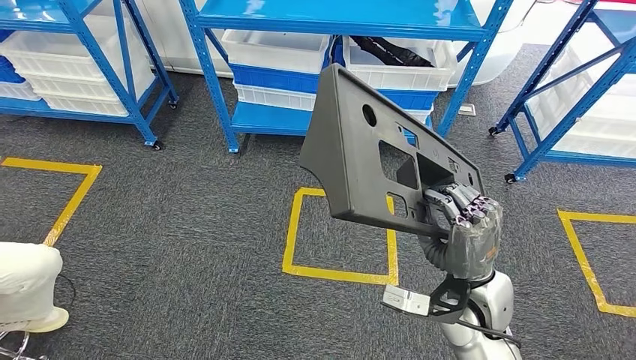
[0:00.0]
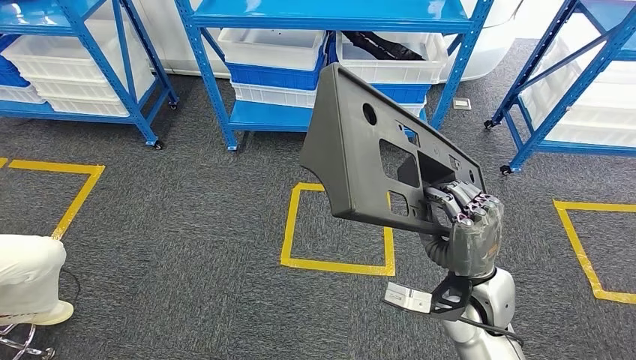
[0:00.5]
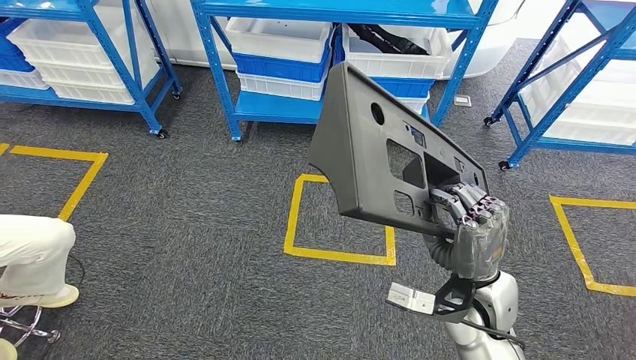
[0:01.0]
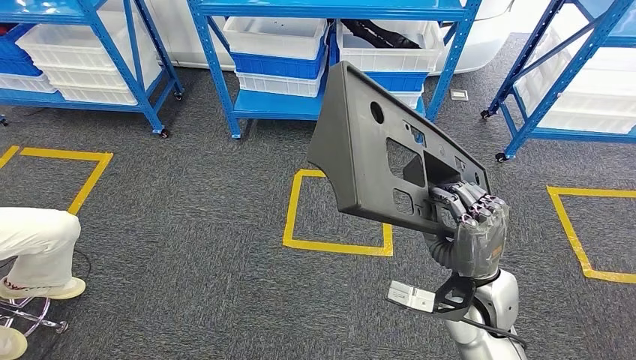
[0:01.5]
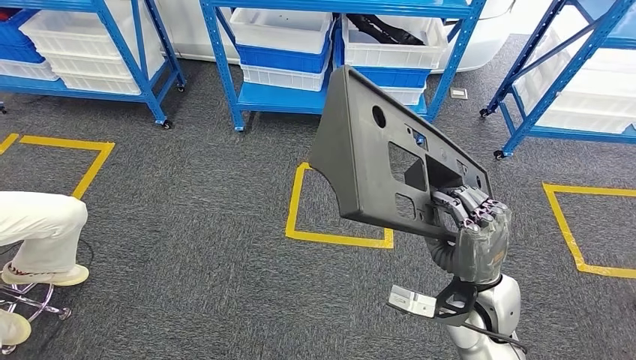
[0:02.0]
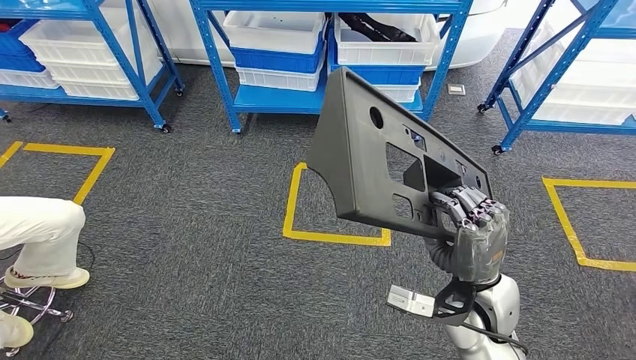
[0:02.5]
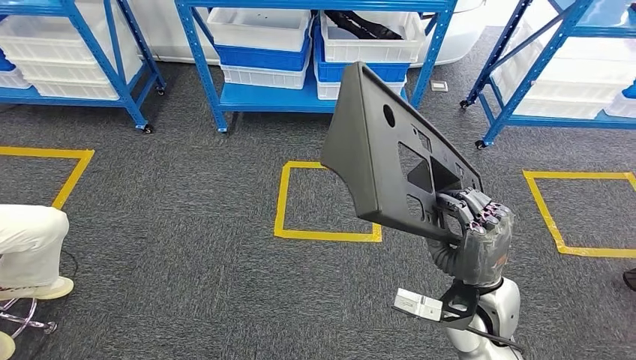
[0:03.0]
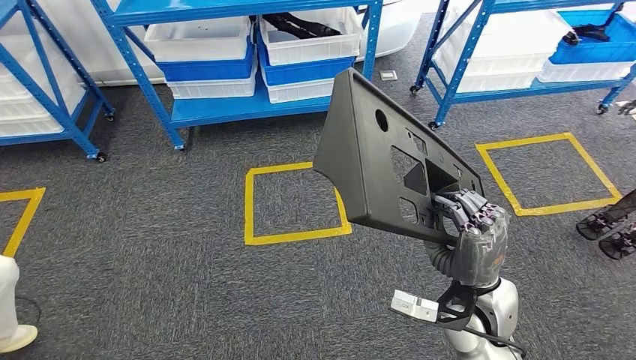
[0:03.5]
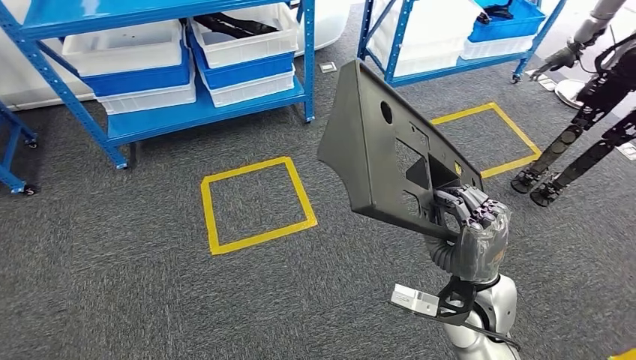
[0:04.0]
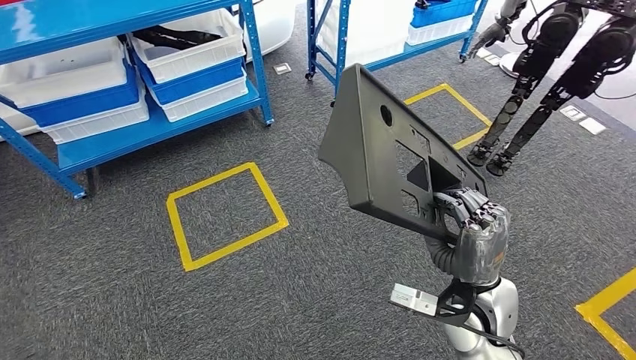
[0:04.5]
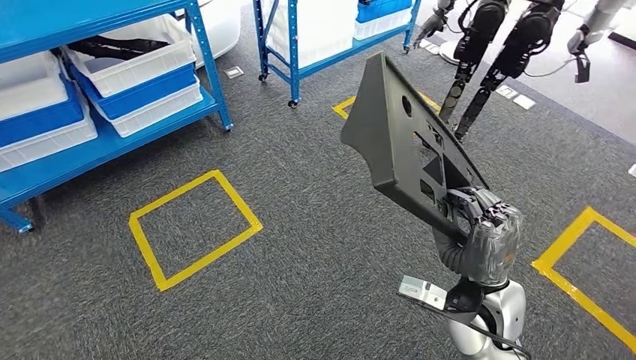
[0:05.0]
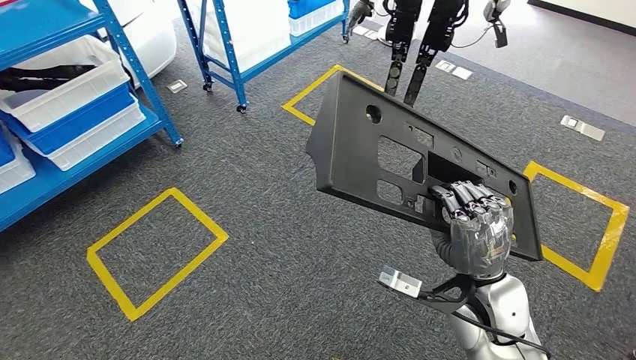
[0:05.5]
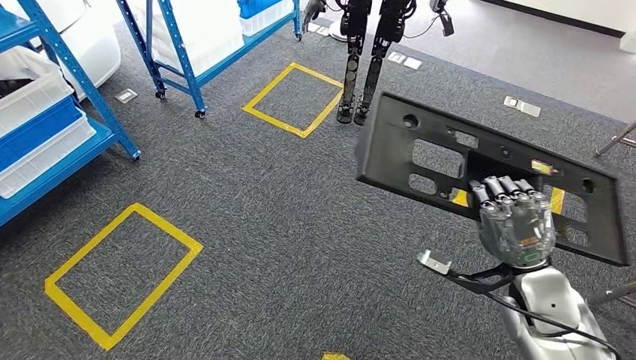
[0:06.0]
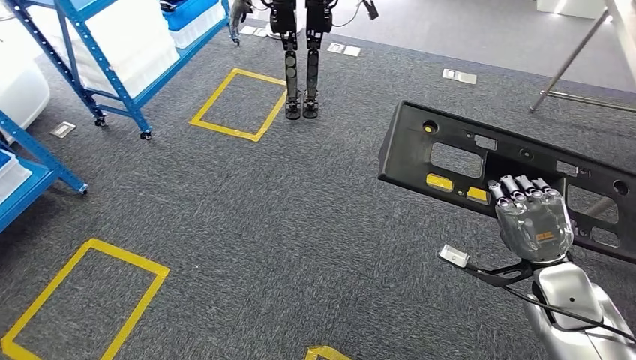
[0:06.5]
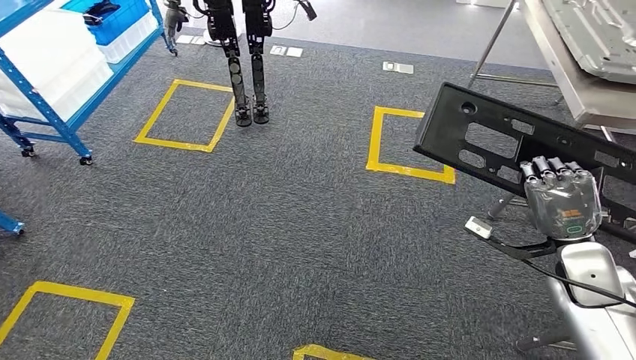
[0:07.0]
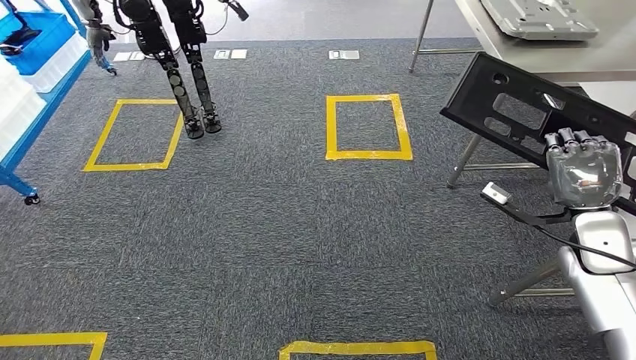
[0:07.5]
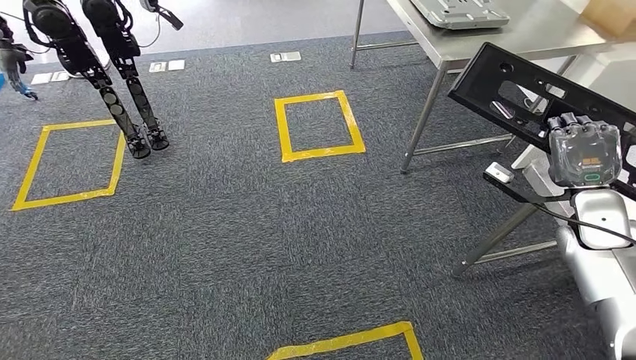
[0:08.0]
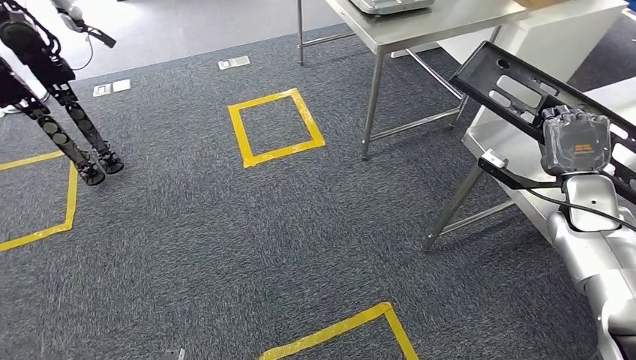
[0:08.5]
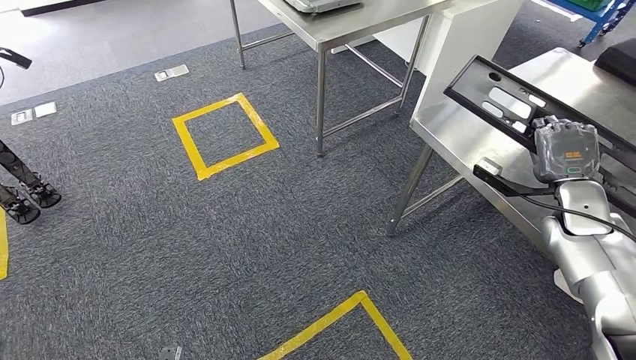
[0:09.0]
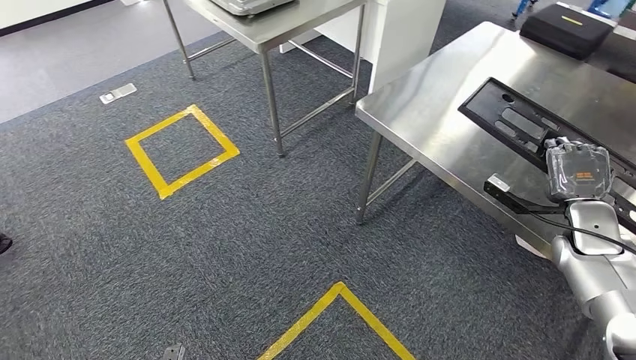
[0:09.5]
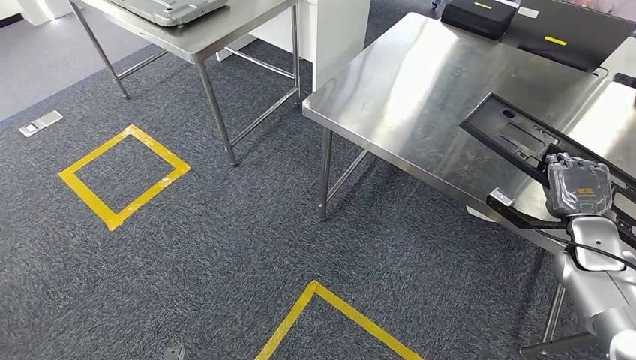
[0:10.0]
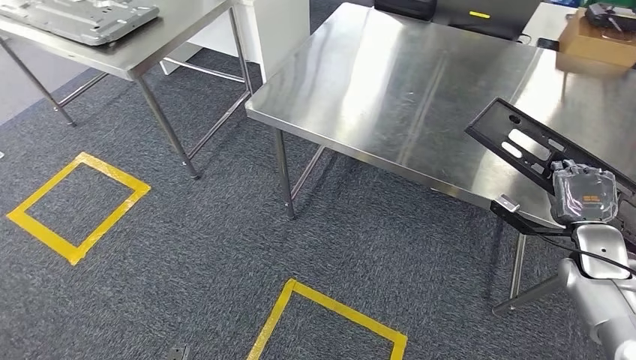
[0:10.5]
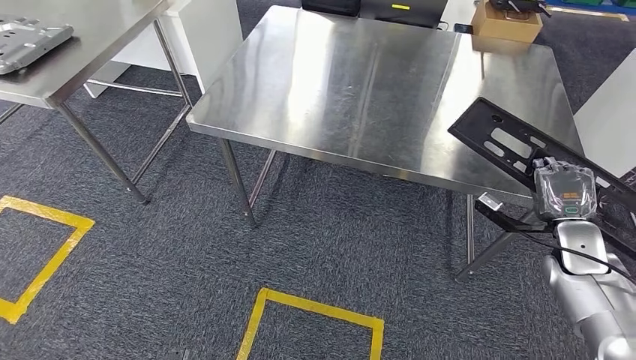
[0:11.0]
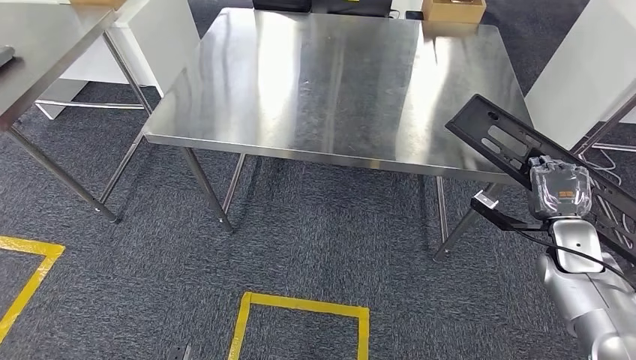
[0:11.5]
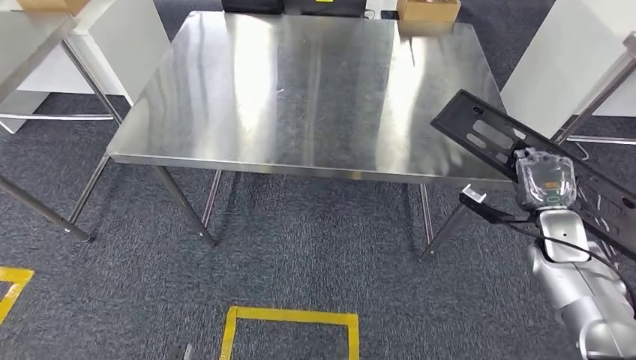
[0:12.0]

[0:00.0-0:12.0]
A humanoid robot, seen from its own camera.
Step, 0:00.0 to 0:08.0: Move the large material to the workbench.

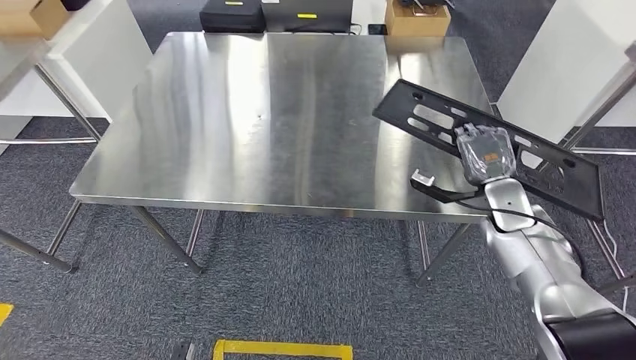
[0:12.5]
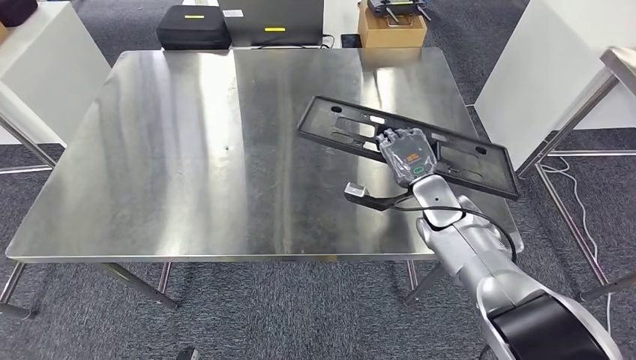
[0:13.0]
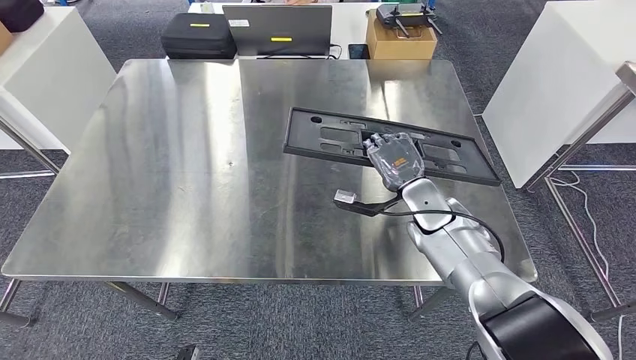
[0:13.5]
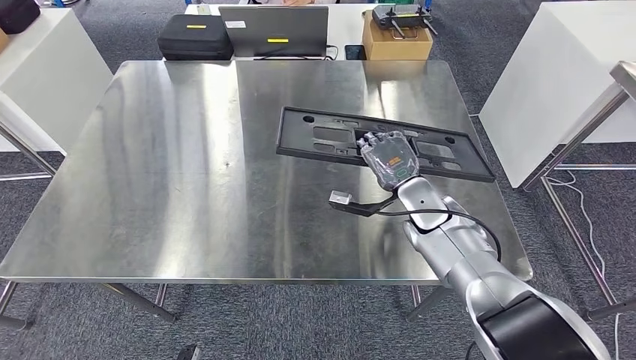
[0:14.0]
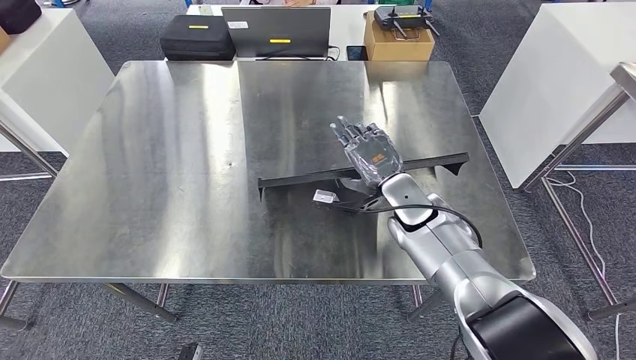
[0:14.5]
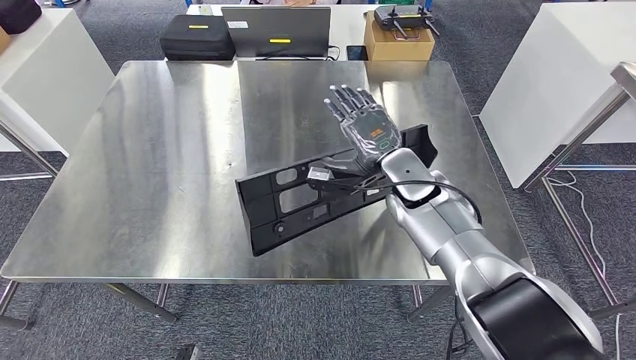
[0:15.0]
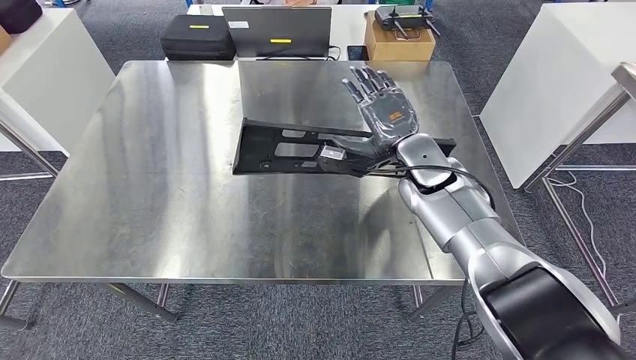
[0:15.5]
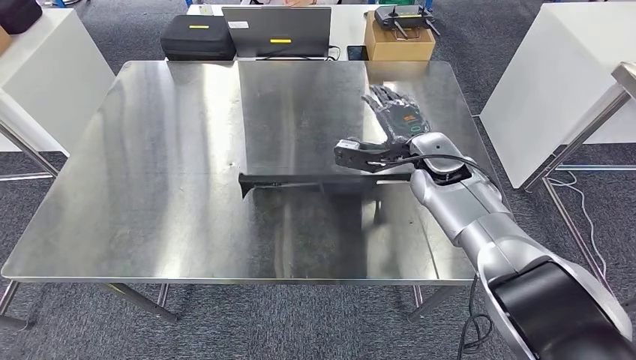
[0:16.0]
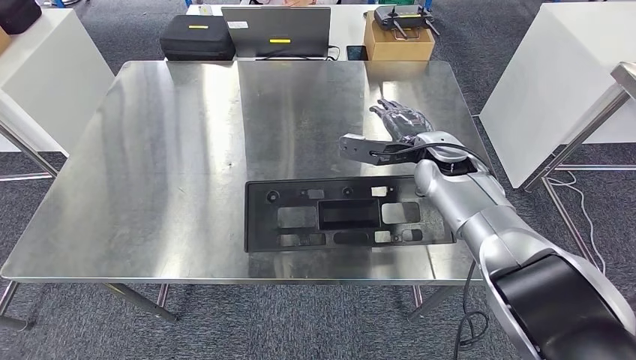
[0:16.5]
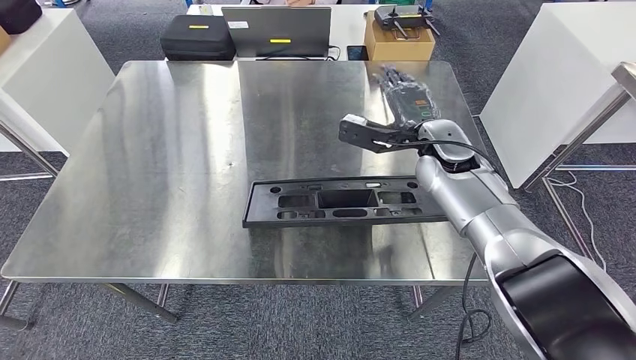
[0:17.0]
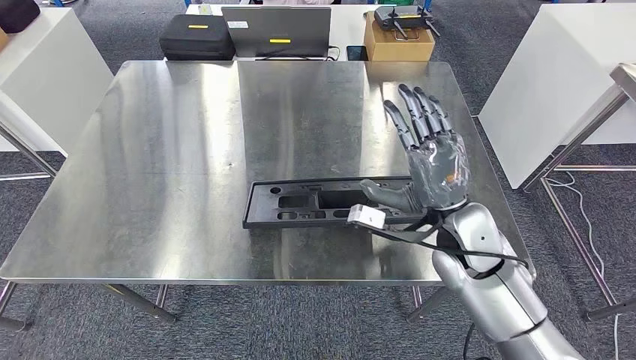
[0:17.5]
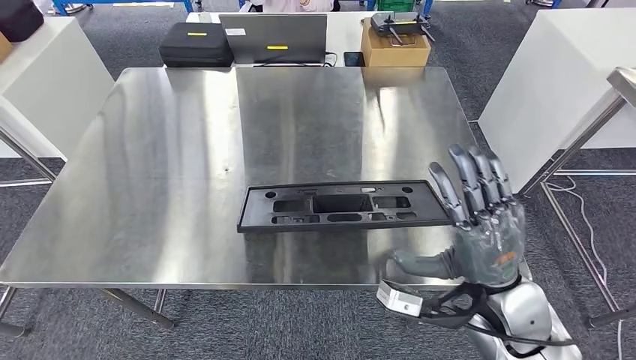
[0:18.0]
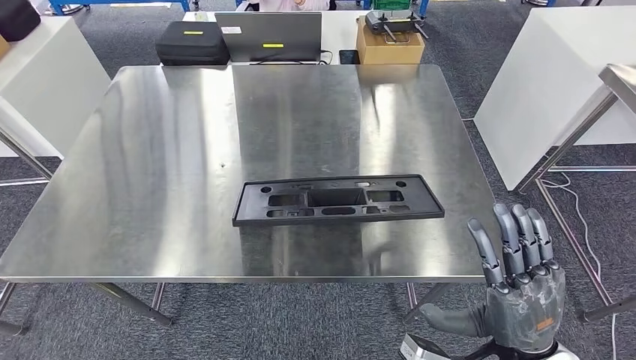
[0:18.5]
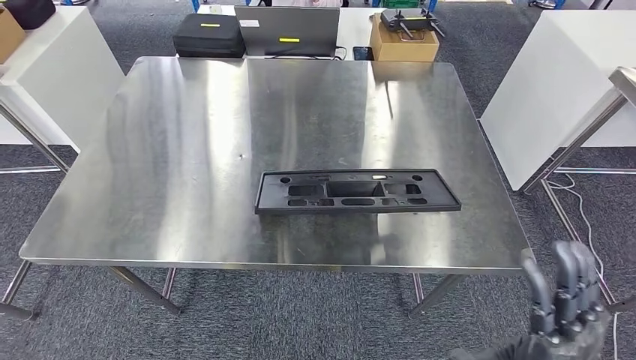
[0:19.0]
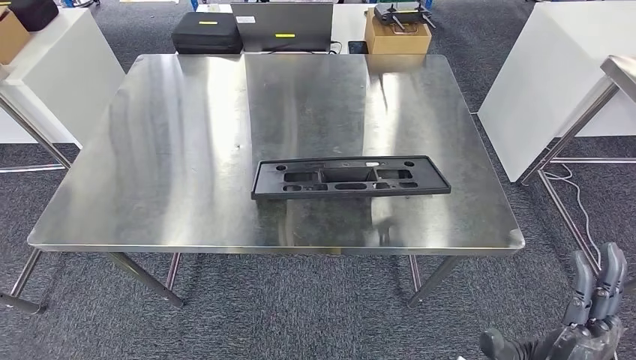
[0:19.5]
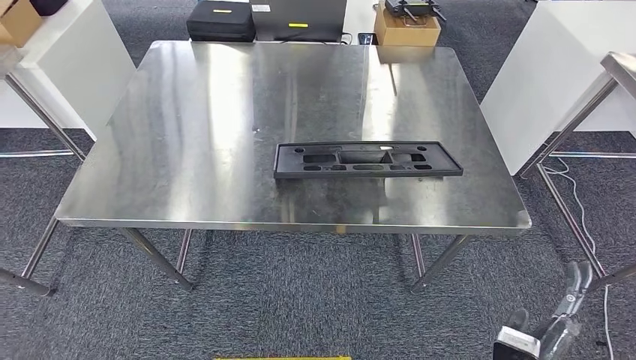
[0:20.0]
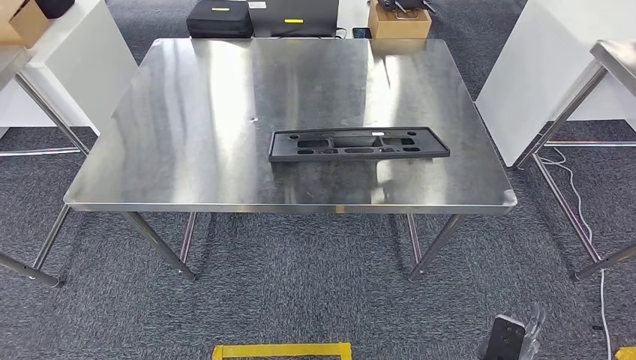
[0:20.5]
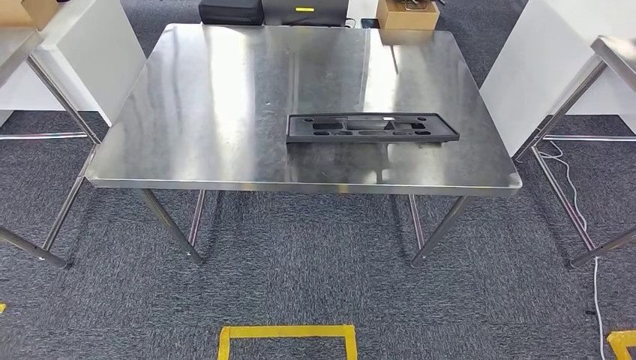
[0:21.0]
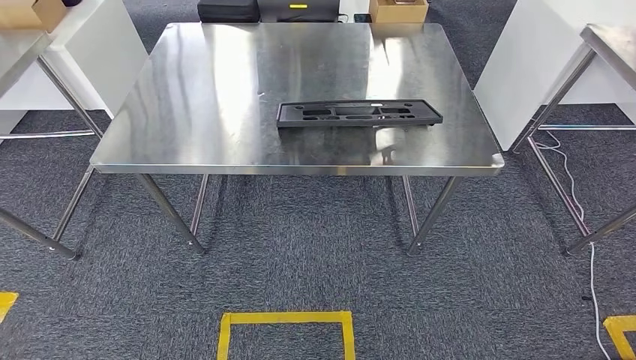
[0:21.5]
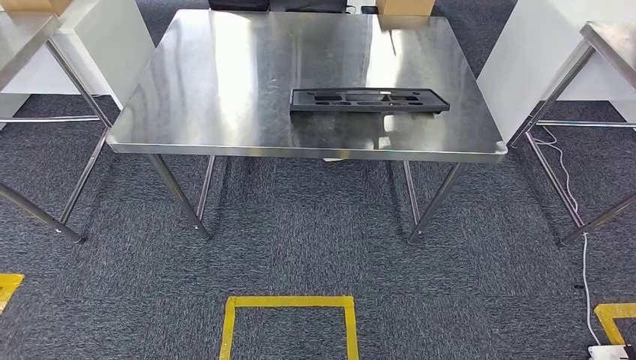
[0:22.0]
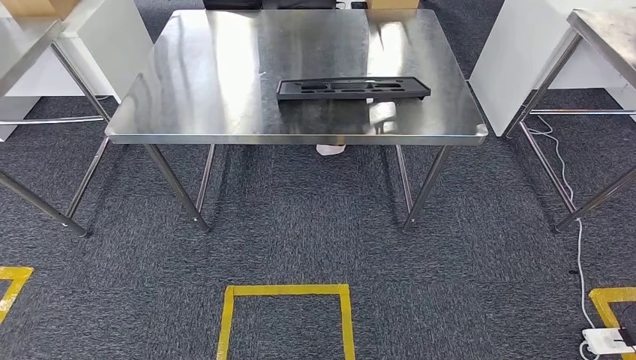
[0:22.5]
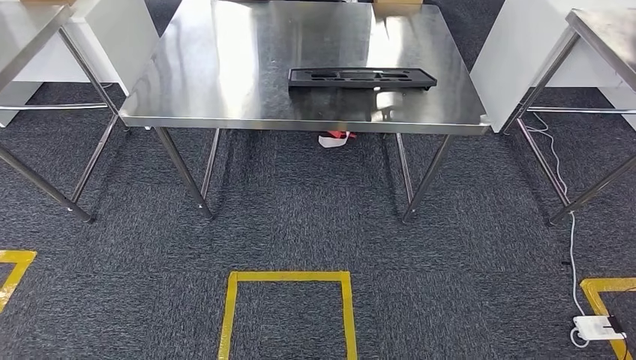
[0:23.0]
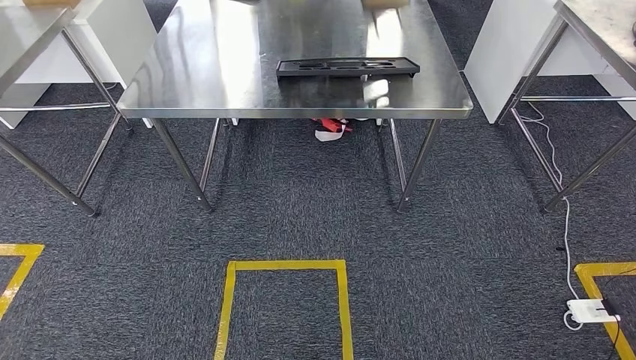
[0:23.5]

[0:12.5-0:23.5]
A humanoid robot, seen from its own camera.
Step, 0:12.5 to 0:16.5: Insert the large material into the corresponding slot on the workbench.
0:14.5 to 0:16.0: The left hand travels backward by approximately 5 cm. The right hand shifts approximately 5 cm upward.
